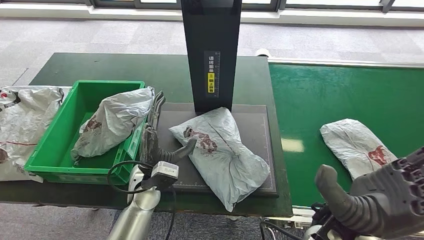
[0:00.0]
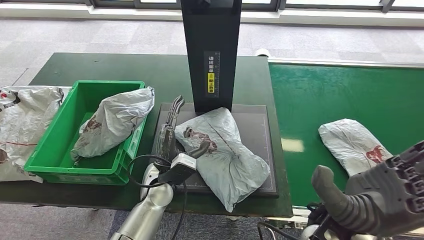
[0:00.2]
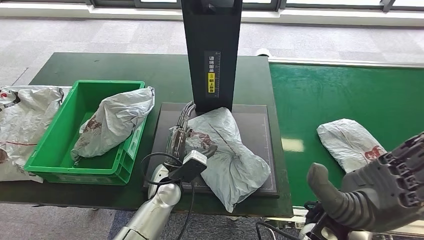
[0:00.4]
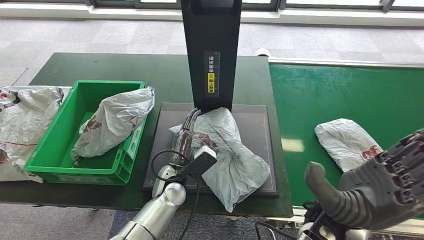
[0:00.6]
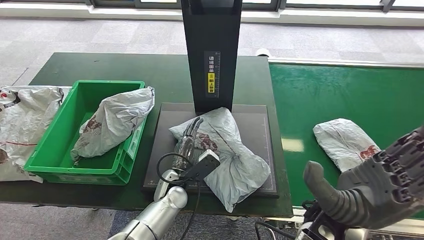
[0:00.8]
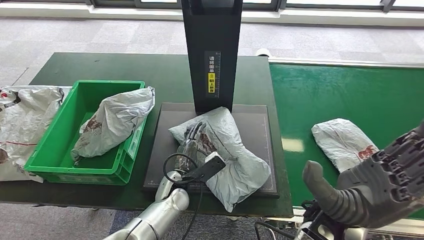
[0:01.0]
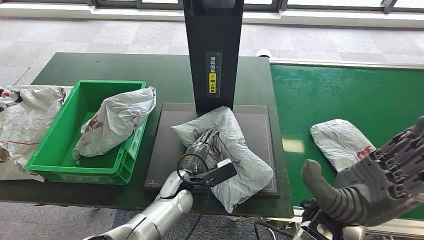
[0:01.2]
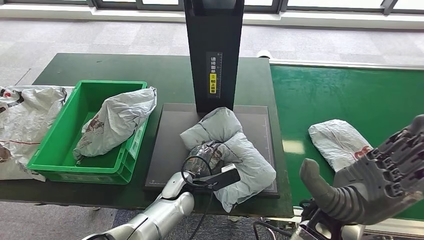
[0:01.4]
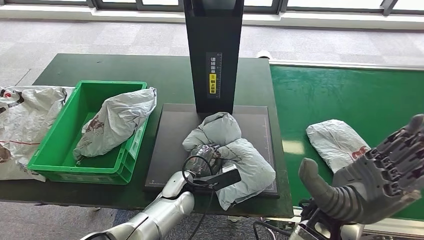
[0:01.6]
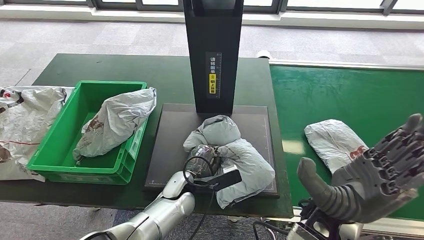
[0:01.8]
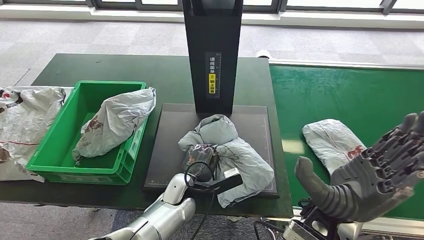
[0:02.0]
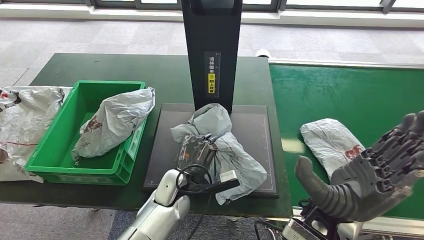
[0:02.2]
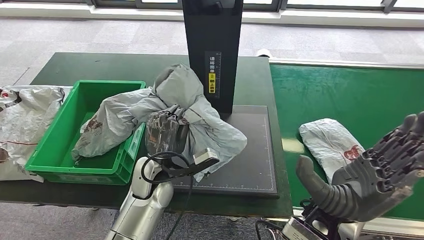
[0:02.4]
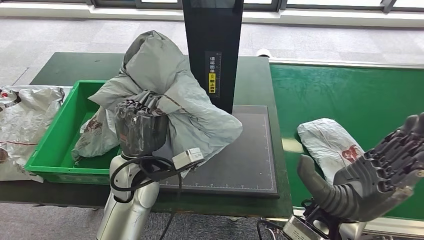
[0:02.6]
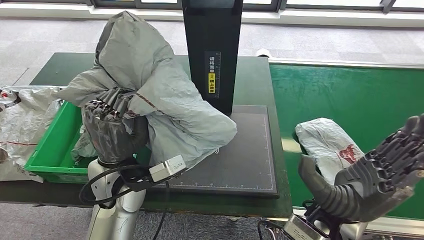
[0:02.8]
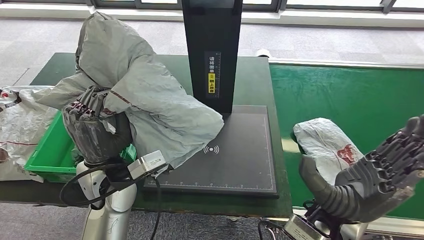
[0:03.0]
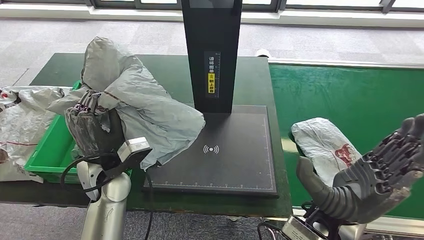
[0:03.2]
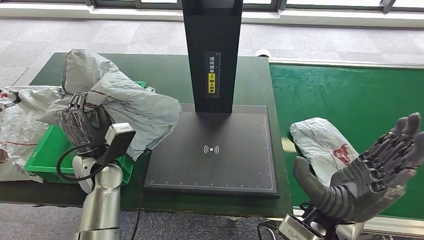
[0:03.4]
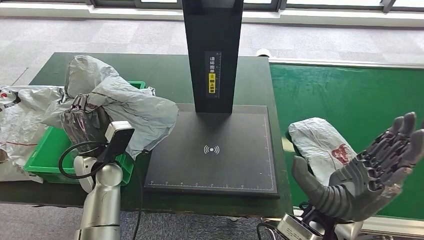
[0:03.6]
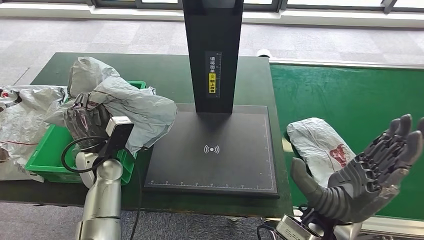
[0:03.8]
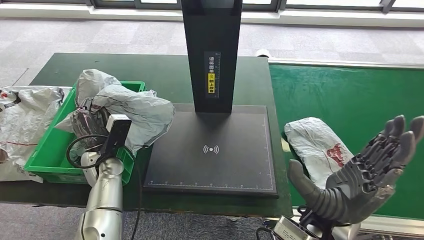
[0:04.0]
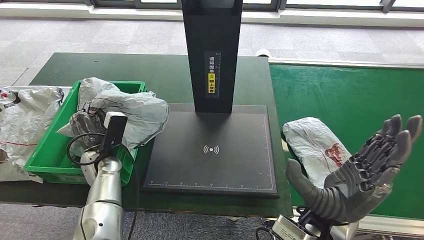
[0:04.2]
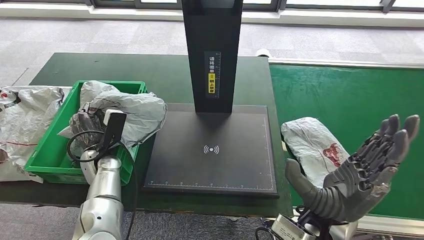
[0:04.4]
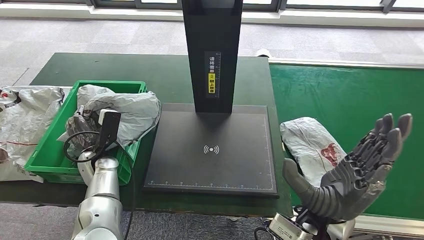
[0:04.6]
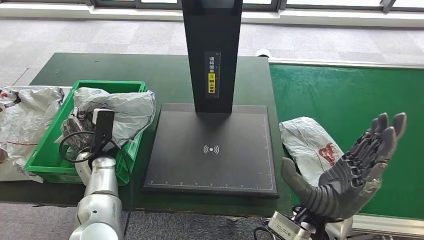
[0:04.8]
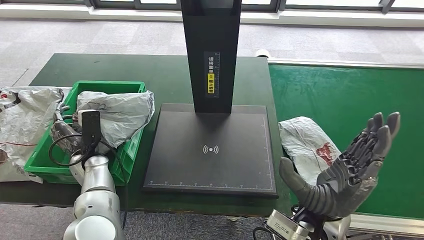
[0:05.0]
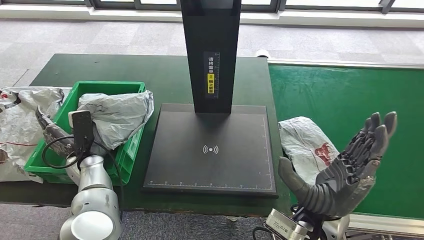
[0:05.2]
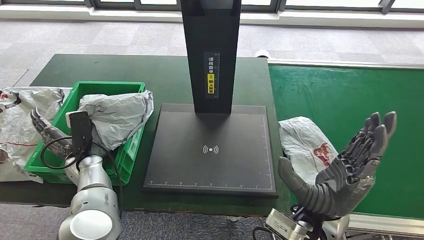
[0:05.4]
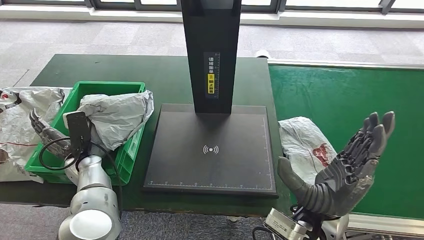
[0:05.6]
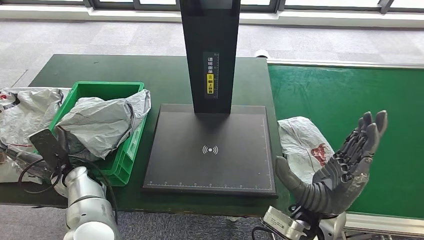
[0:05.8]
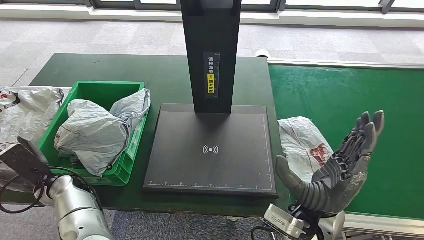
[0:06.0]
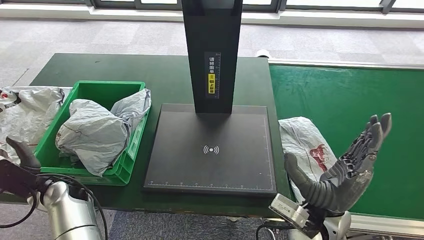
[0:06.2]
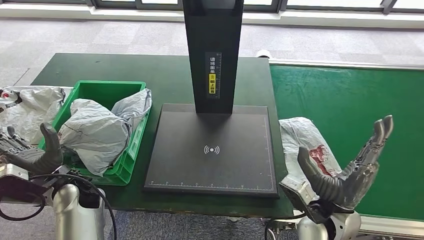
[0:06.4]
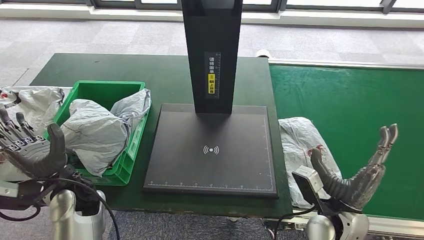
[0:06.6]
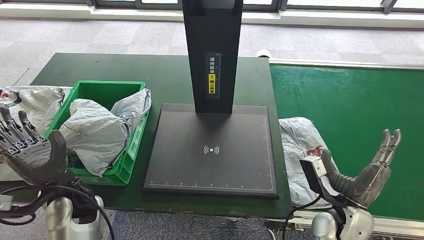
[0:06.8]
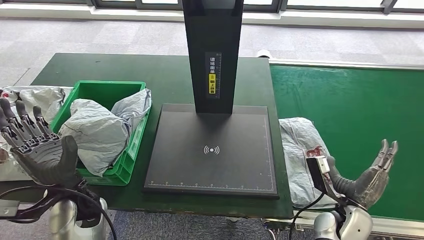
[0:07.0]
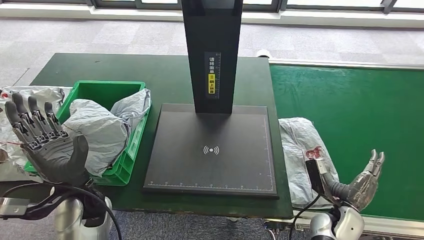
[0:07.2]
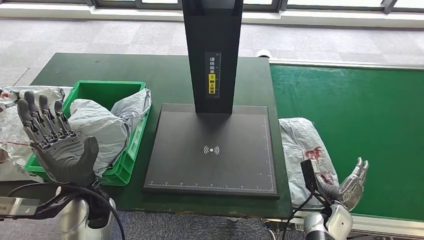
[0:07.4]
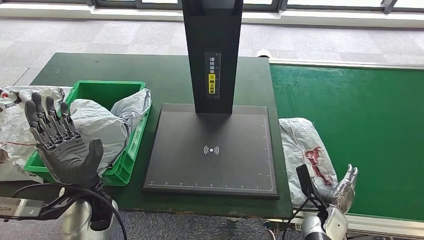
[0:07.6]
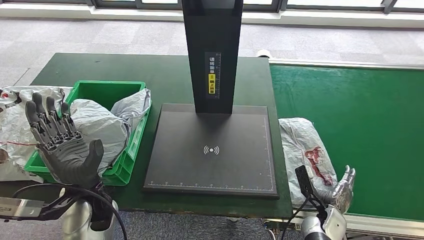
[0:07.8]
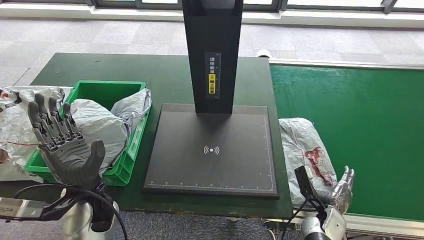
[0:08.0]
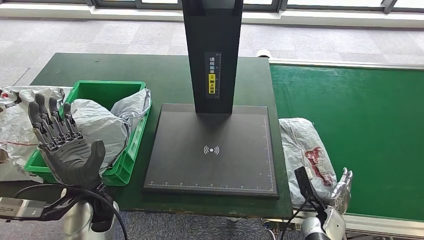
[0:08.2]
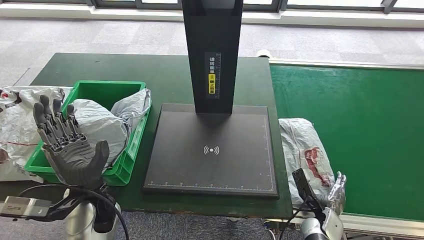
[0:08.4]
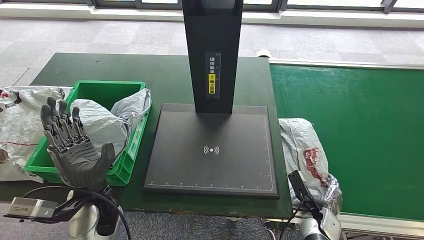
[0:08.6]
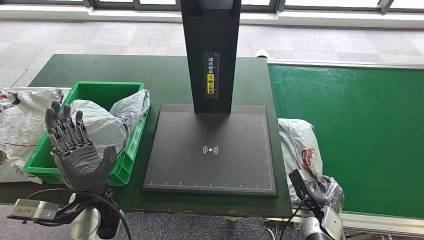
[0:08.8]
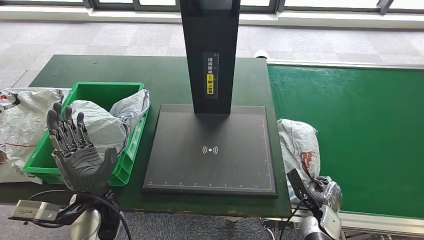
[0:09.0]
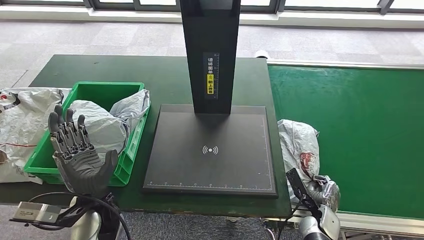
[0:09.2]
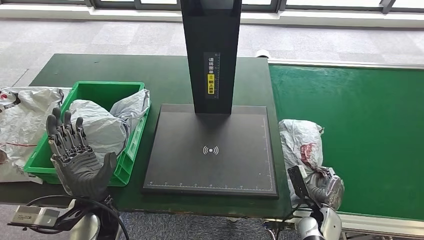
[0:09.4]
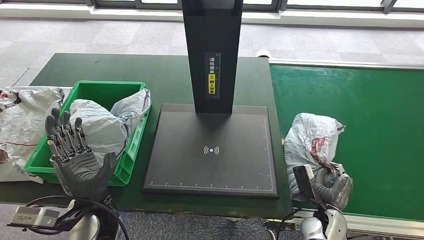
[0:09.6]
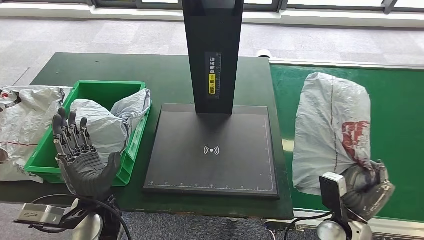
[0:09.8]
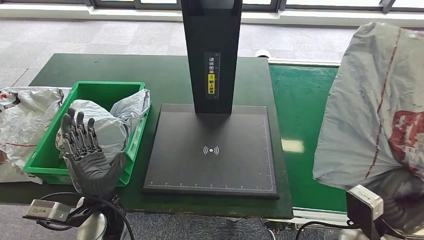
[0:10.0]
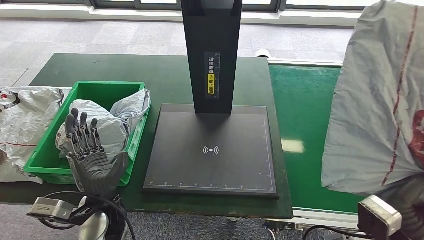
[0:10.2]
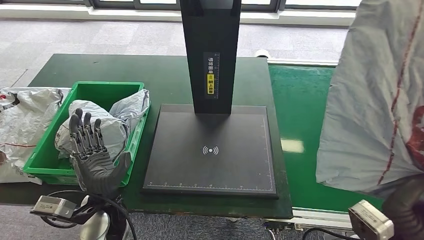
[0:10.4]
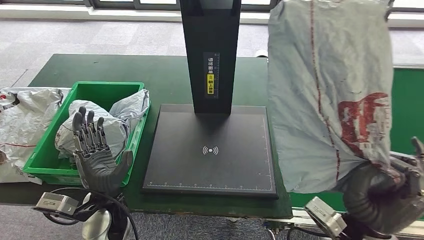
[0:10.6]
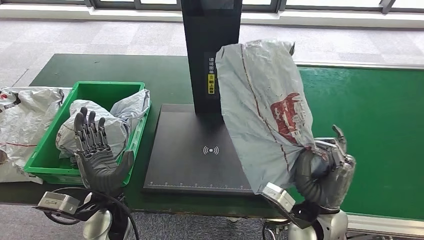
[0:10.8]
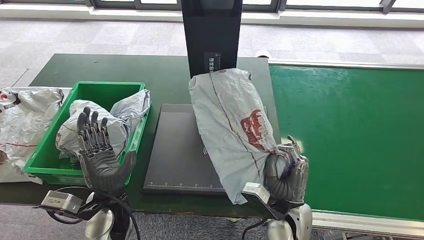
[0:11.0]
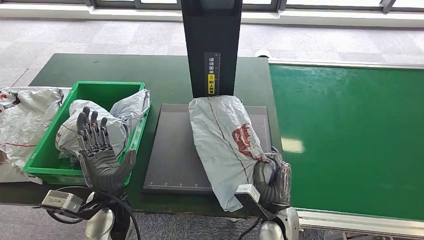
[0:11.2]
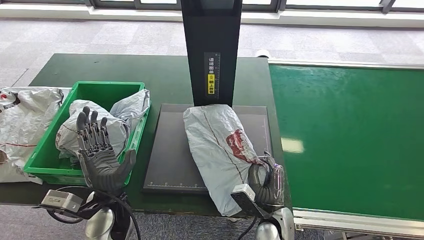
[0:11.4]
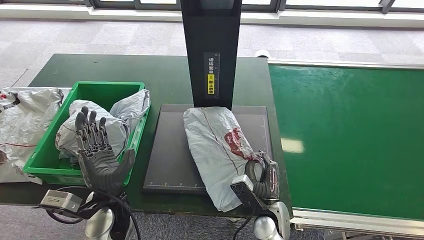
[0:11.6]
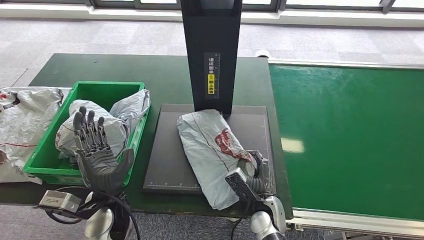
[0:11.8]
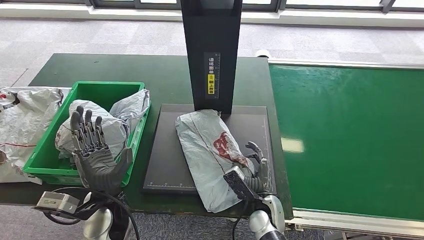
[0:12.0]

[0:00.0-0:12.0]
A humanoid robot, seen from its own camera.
Step, 0:00.2 to 0:03.4: Pick up the parcel from the inbound machine.
Step, 0:03.6 to 0:07.6: Place the parcel into the delivery box.
Step, 0:08.6 to 0:10.8: Pick up the parcel from the conveyor belt.
0:06.0 to 0:07.6: The right hand is displaced downward and to the right by approximately 20 cm; the left hand shifts about 15 cm to the right, upward and backward.

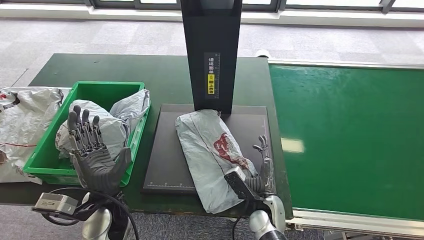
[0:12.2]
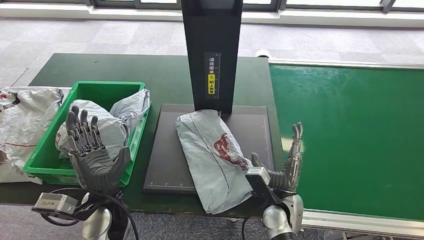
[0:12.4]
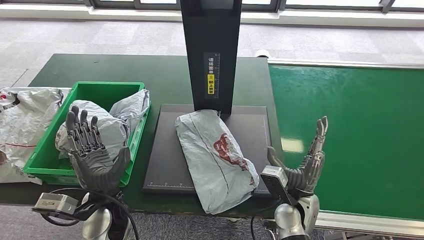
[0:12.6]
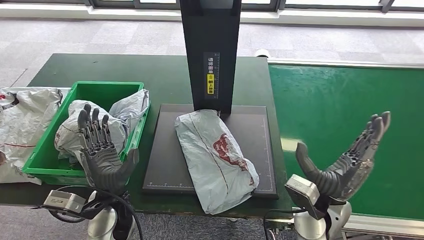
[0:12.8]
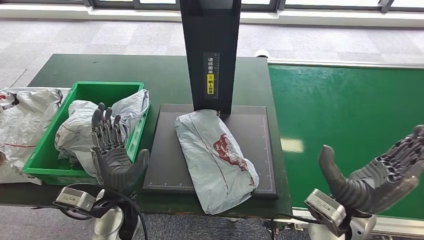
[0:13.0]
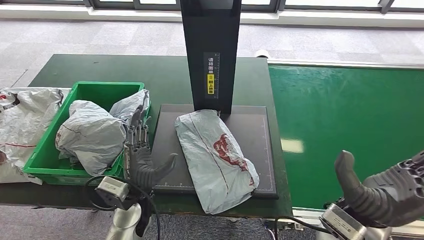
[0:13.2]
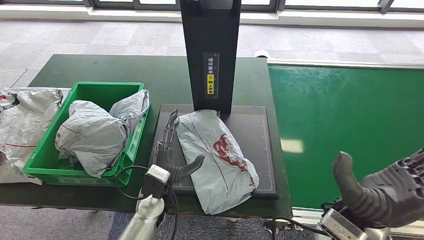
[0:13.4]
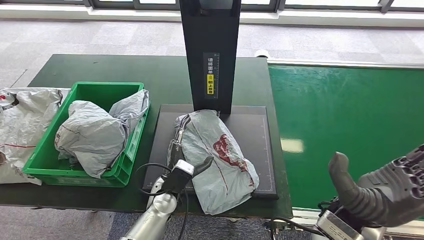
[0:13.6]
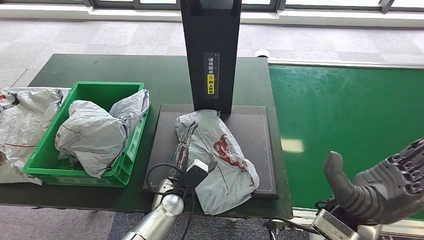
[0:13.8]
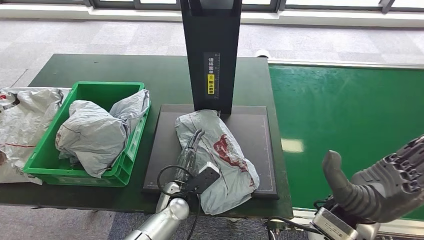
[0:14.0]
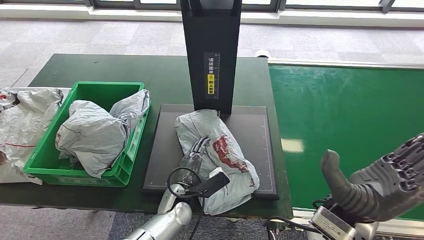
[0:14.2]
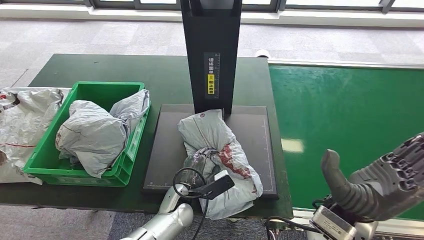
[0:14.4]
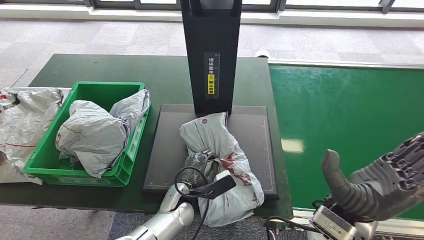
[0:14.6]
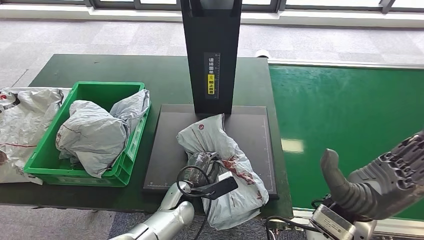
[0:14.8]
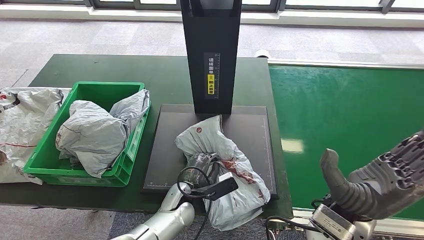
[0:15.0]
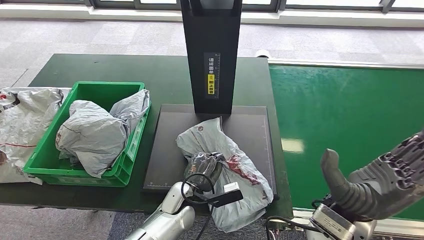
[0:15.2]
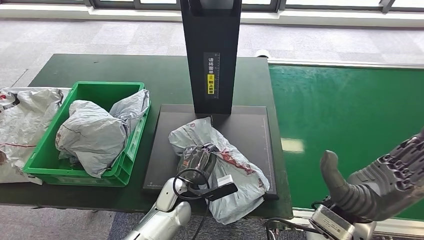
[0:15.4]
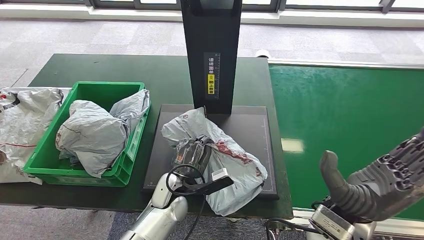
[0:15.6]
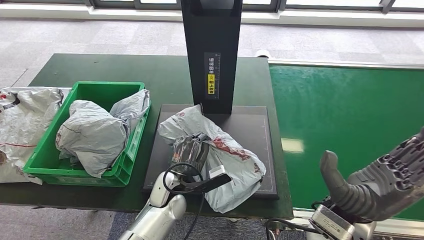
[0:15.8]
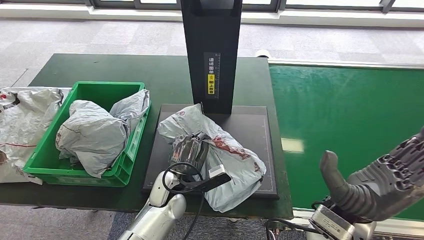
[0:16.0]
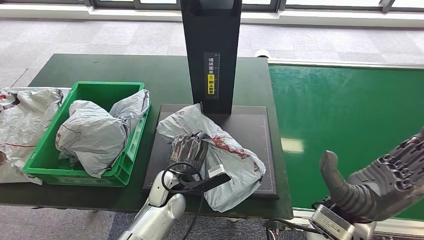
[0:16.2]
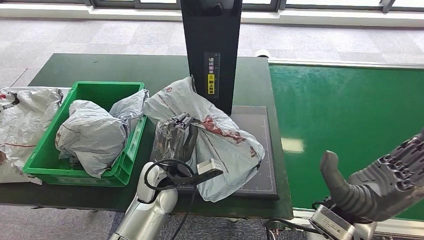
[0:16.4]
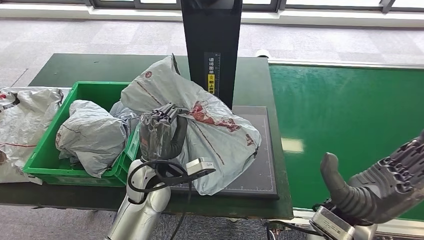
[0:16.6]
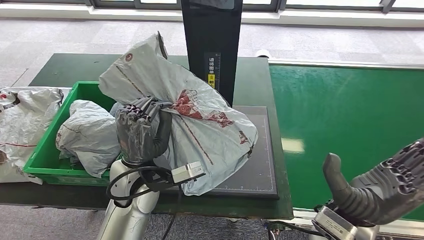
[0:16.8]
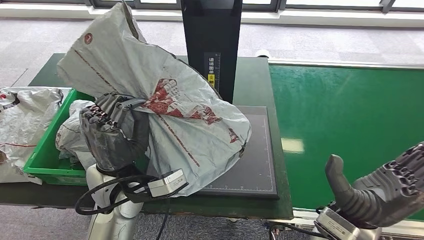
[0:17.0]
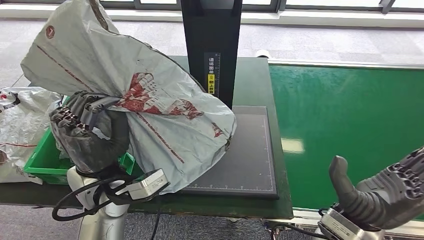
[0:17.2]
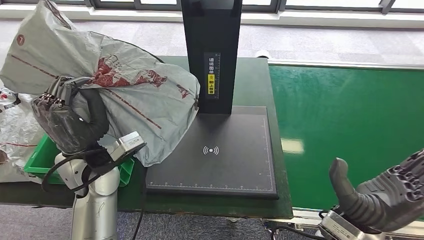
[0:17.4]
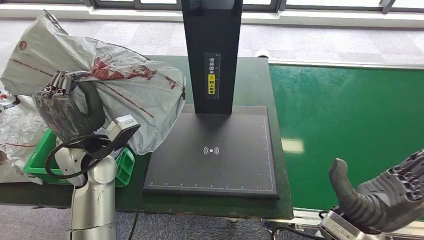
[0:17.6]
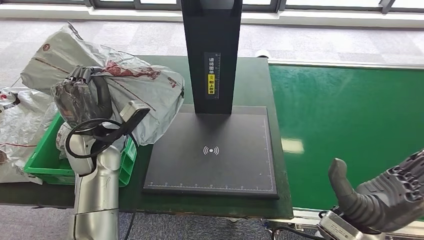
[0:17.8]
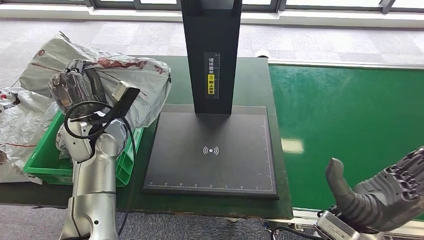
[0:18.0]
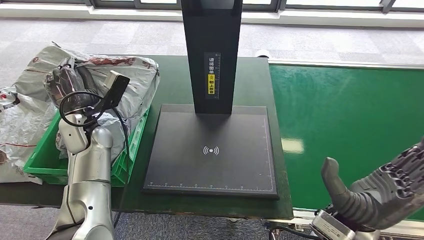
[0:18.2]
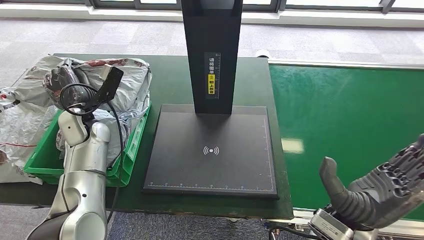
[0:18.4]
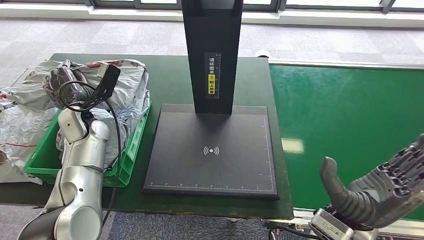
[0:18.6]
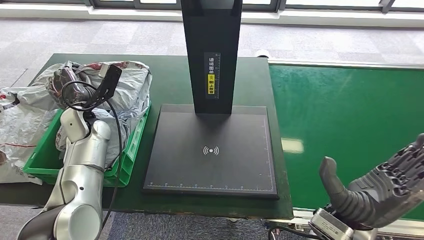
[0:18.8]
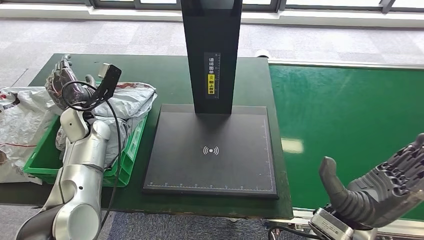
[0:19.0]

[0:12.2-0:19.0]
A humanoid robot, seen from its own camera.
Step, 0:12.2 to 0:13.6: Place the parcel onto the inbound machine.
Step, 0:14.0 to 0:17.4: Pick up the parcel from the inbound machine.
0:12.2 to 0:13.6: The left hand is displaced to the right and downward by roughly 15 cm; the right hand is displaced upward and to the right by approximately 20 cm.
0:13.6 to 0:15.0: The left hand ends up about 5 cm from where it was.
0:15.0 to 0:16.2: The left hand heads upward, covering some 5 cm.
